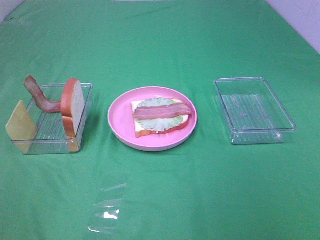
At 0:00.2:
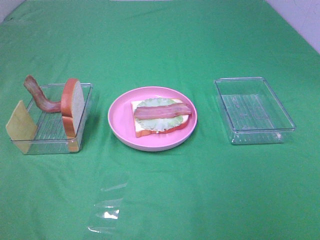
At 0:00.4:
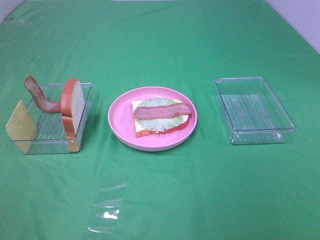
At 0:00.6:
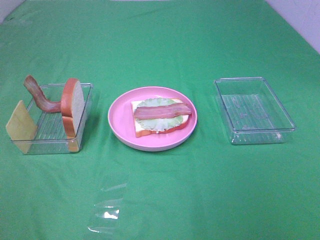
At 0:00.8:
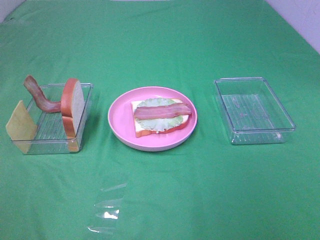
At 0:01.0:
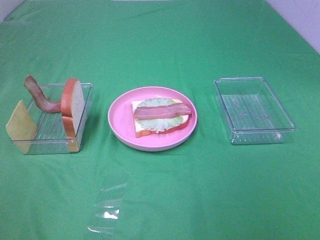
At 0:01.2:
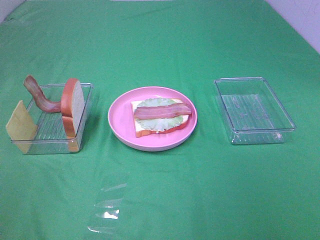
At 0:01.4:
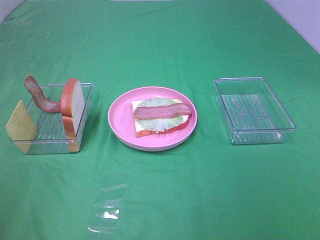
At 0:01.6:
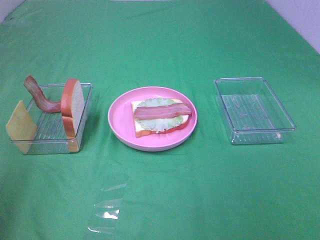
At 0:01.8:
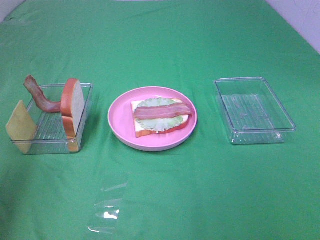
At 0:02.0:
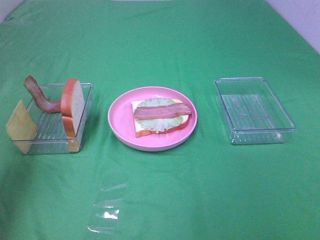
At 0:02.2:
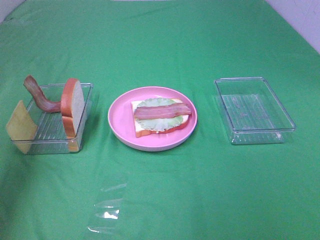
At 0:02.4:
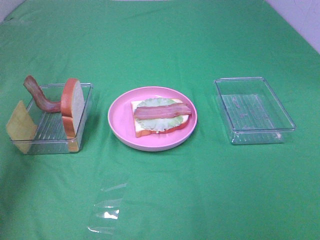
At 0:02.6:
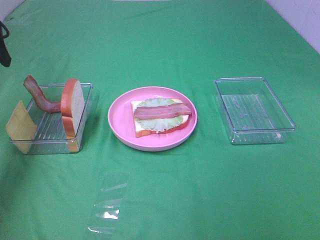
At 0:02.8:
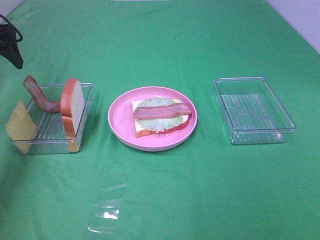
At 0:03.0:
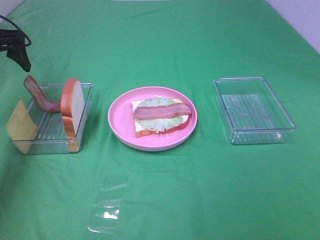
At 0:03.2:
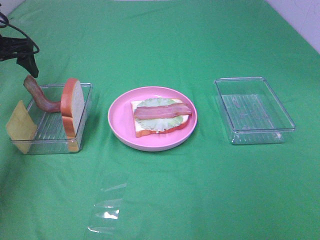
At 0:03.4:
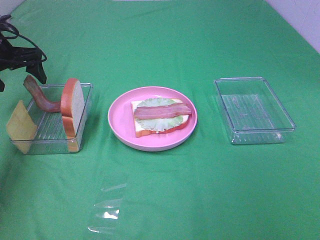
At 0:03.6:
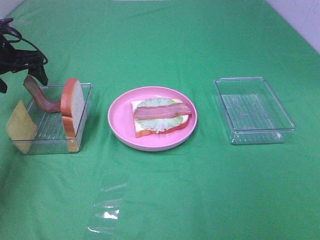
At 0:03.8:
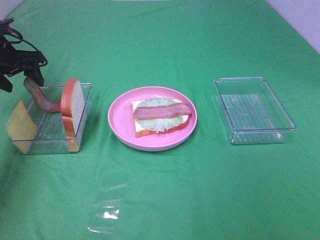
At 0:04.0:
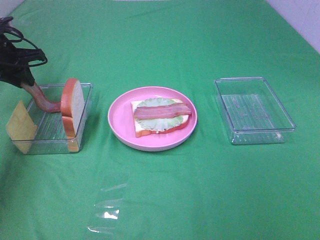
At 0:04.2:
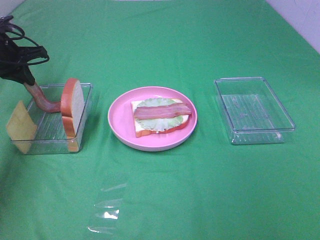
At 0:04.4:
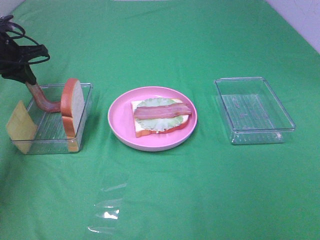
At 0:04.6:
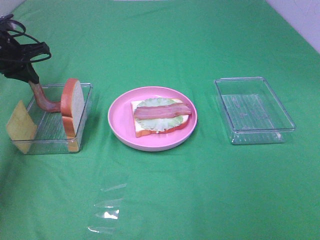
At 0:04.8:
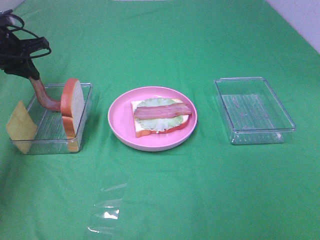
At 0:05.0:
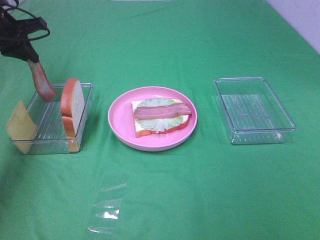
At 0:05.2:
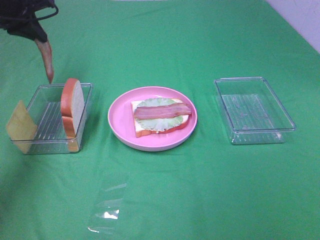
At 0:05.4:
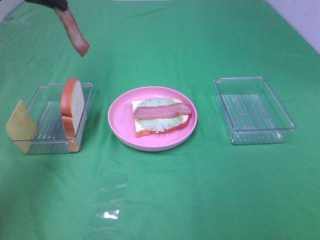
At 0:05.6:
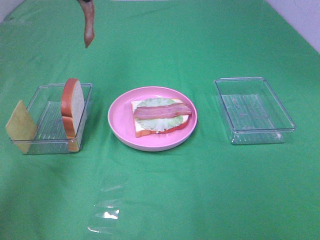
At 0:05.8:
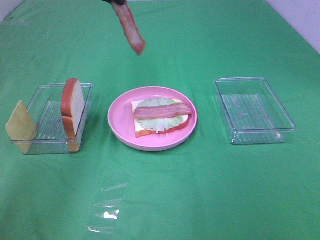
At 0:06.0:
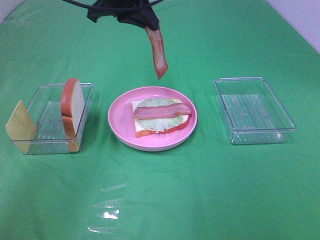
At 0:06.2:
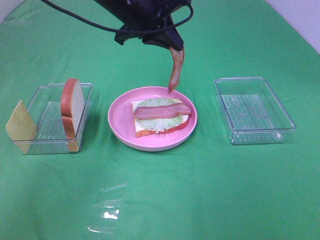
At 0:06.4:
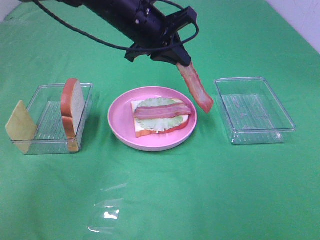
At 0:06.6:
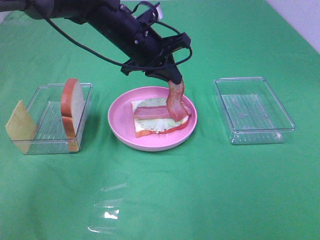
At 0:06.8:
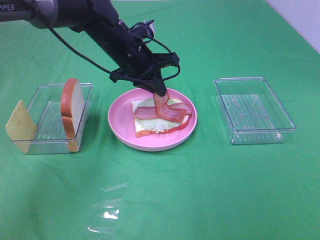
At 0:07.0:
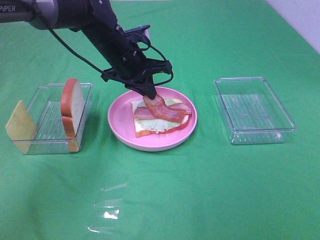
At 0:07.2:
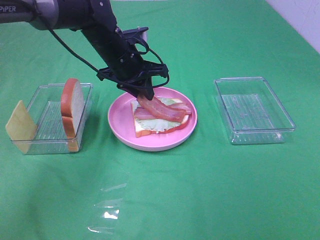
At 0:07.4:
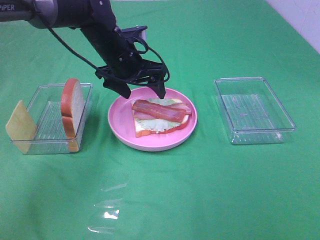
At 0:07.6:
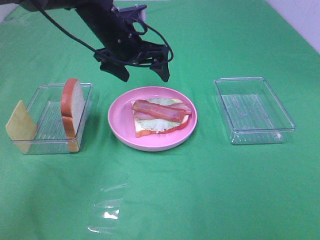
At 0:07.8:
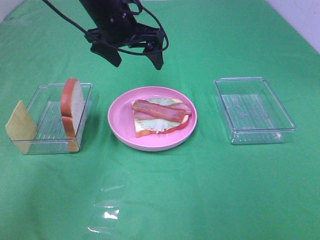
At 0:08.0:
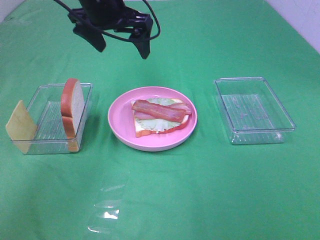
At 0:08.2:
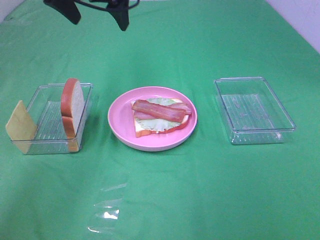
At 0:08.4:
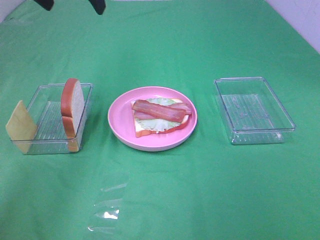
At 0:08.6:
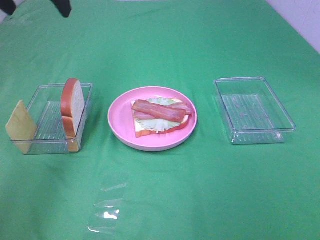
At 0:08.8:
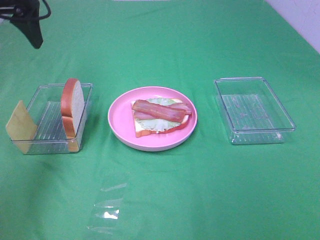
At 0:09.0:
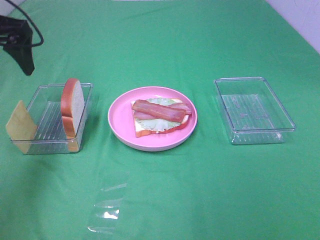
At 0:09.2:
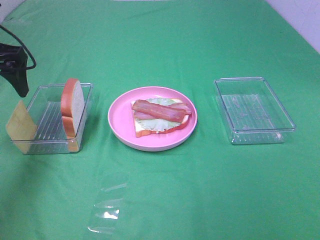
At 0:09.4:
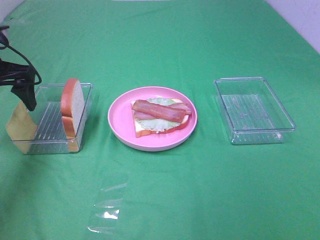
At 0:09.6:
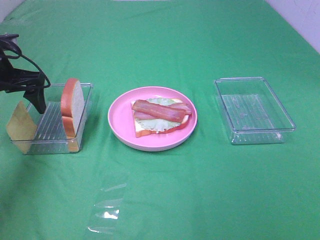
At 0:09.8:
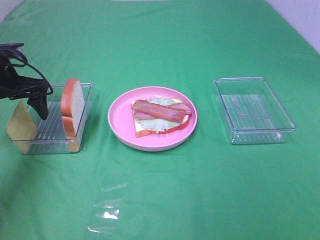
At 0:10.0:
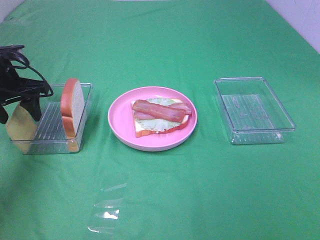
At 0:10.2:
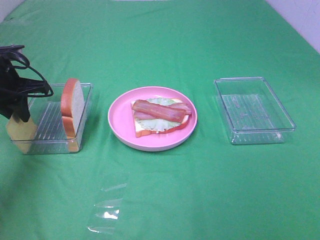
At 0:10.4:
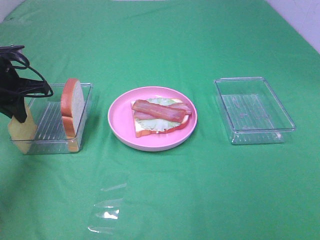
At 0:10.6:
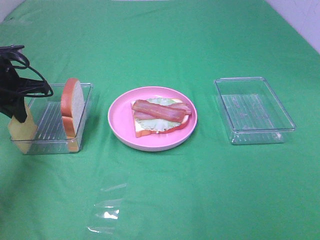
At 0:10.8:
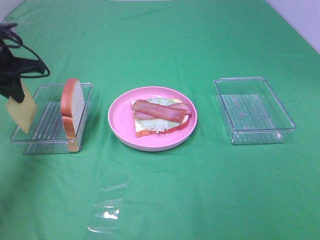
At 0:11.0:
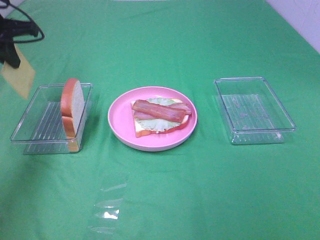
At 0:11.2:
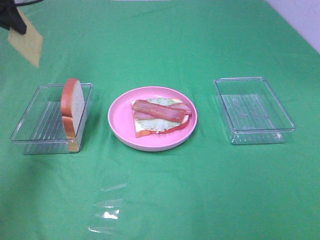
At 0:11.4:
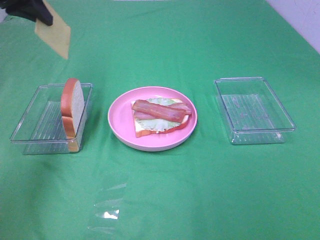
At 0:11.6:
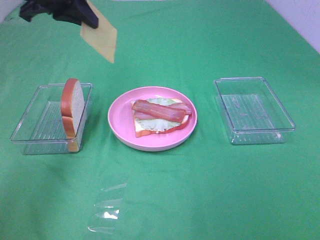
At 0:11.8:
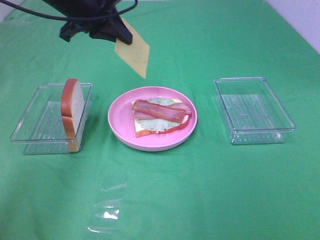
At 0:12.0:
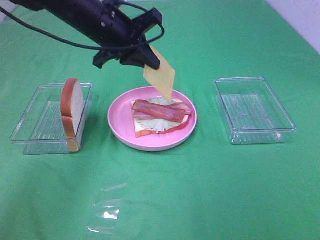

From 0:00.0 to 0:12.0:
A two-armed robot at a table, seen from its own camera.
Task of the whole recording: Make sandwiches.
Step, from 0:00.0 to 0:04.2: Left hand:grab the bacon.
Step, from 0:04.4 to 0:07.4: Left hand:place bacon on bacon.
Step, from 0:07.6 to 0:10.4: Left hand:grab the cheese slice.
From 0:00.0 to 0:01.6: The left gripper is displaced forward by some 15 cm.
From 0:01.6 to 0:03.0: The left gripper is displaced forward by roughly 30 cm.
From 0:03.0 to 0:04.4: The left gripper heads downward, covering about 5 cm, and closes its fingers.
From 0:04.4 to 0:06.0: The left gripper heads to the right and upward, covering approximately 25 cm.
From 0:06.0 to 0:07.6: The left gripper shifts approximately 10 cm downward, and opens up.
From 0:07.6 to 0:09.0: The left gripper is displaced to the left by approximately 20 cm.
From 0:09.0 to 0:10.4: The left gripper heads downward, covering about 10 cm, and closes.
From 0:10.4 to 0:12.0: The left gripper heads to the right, covering approximately 20 cm.

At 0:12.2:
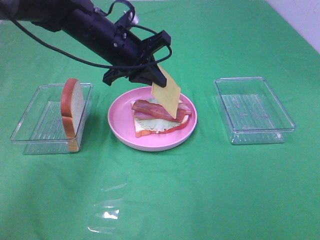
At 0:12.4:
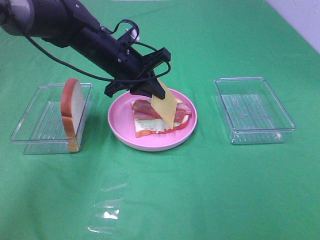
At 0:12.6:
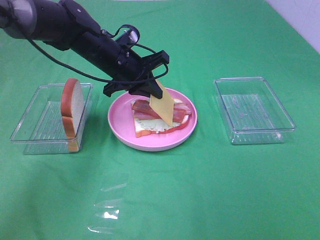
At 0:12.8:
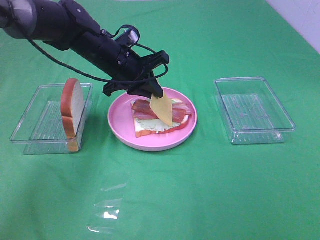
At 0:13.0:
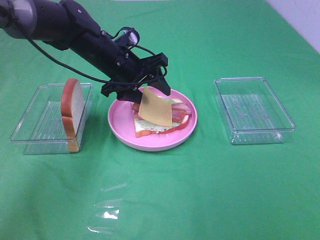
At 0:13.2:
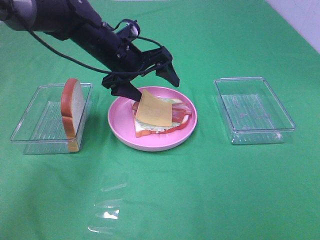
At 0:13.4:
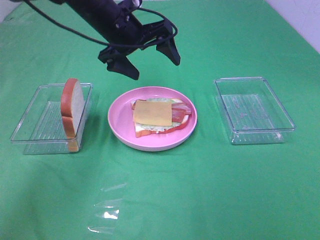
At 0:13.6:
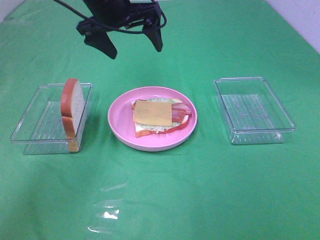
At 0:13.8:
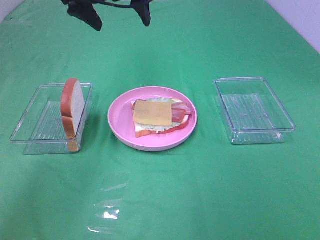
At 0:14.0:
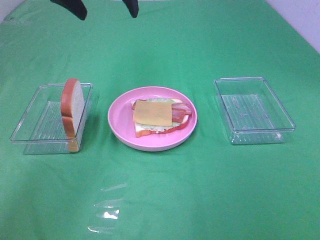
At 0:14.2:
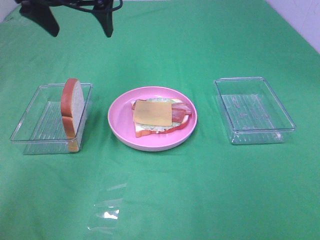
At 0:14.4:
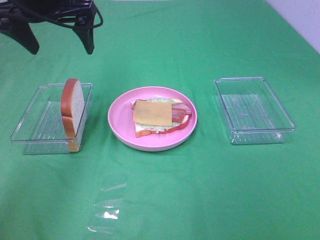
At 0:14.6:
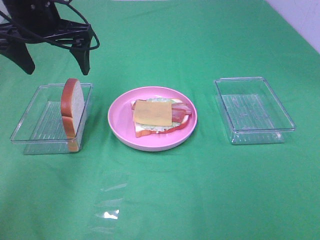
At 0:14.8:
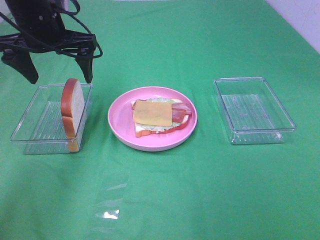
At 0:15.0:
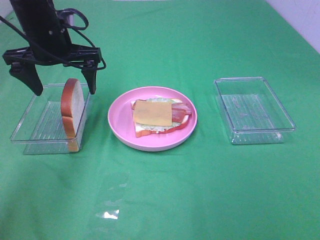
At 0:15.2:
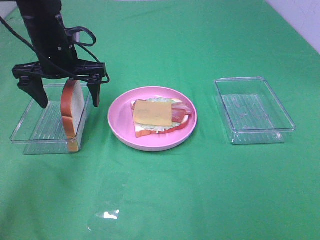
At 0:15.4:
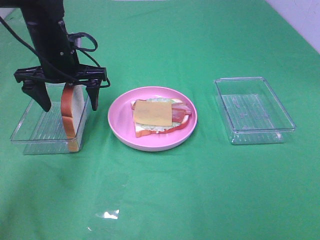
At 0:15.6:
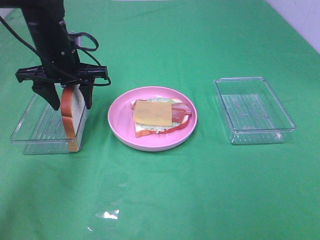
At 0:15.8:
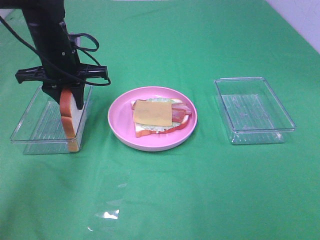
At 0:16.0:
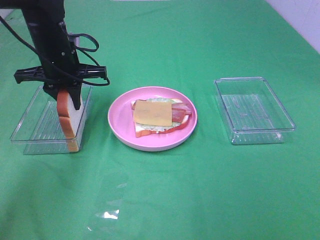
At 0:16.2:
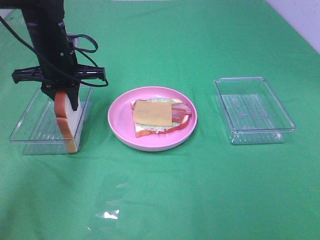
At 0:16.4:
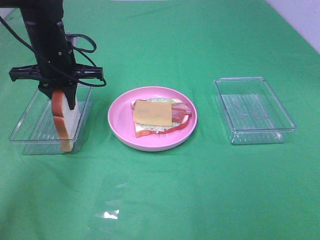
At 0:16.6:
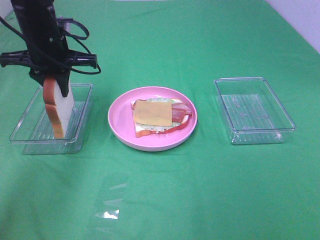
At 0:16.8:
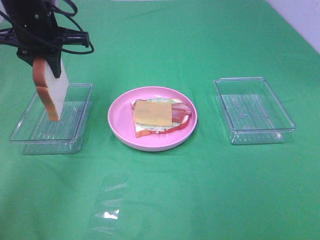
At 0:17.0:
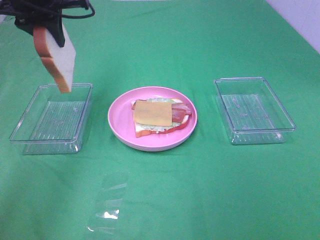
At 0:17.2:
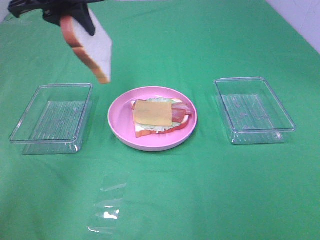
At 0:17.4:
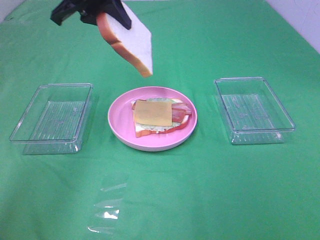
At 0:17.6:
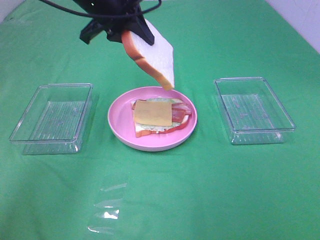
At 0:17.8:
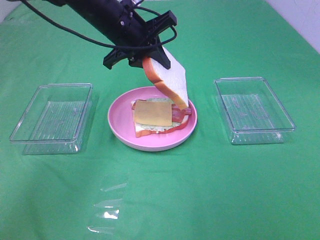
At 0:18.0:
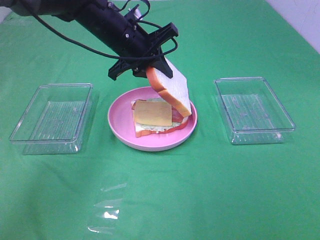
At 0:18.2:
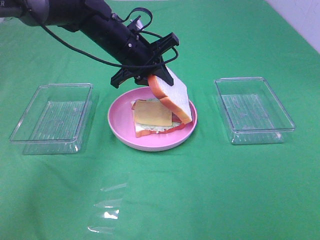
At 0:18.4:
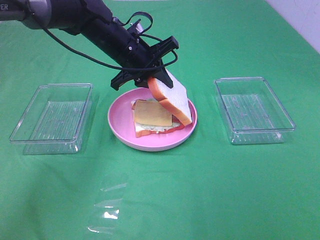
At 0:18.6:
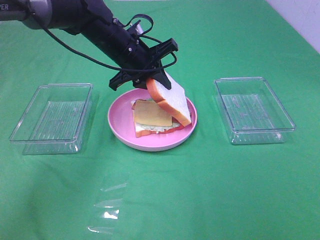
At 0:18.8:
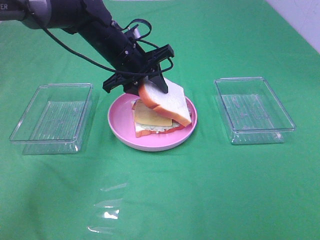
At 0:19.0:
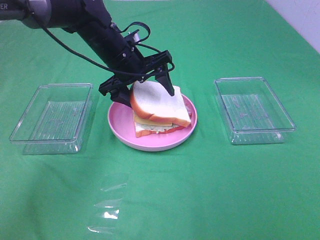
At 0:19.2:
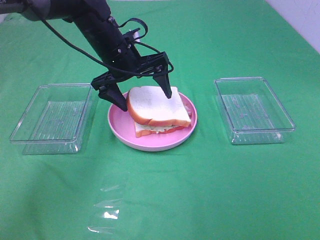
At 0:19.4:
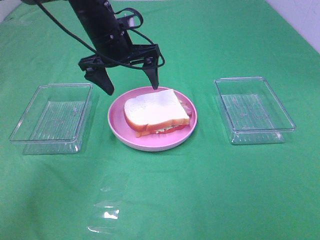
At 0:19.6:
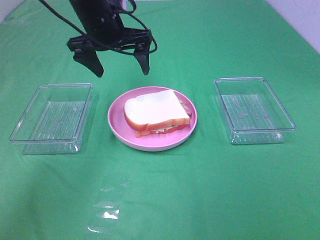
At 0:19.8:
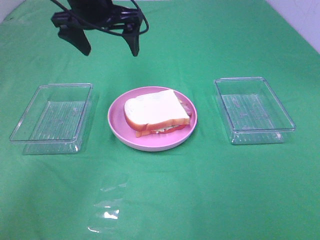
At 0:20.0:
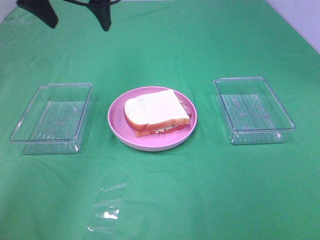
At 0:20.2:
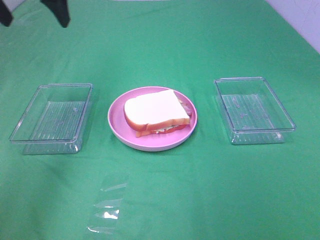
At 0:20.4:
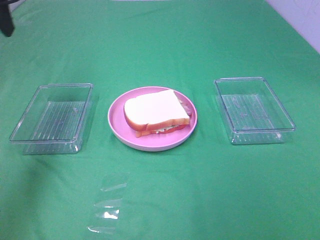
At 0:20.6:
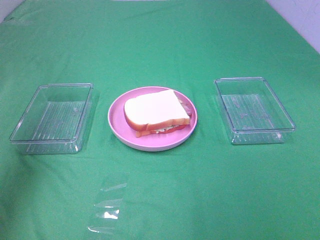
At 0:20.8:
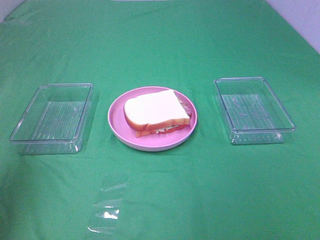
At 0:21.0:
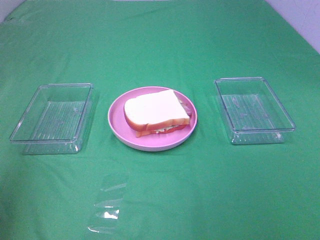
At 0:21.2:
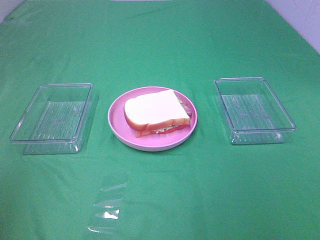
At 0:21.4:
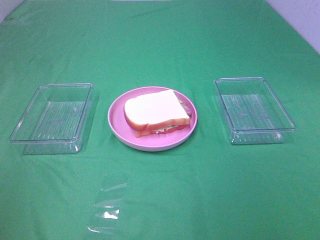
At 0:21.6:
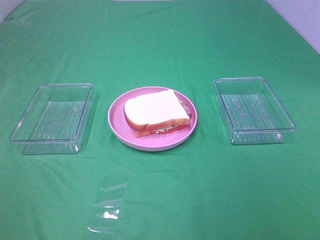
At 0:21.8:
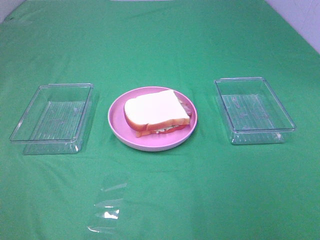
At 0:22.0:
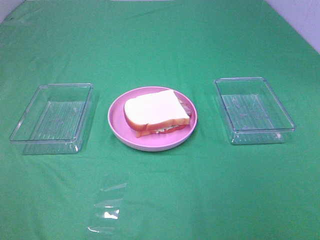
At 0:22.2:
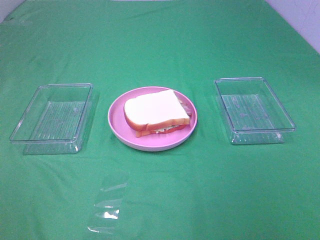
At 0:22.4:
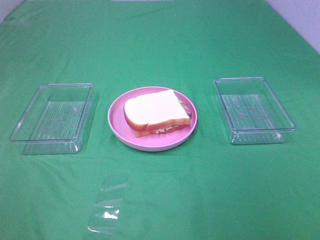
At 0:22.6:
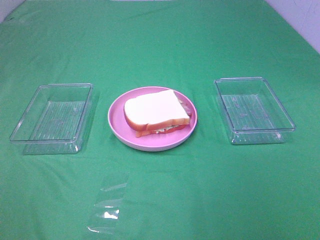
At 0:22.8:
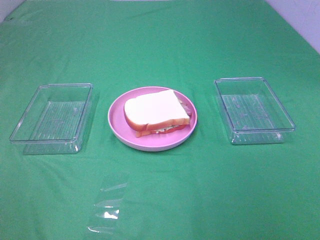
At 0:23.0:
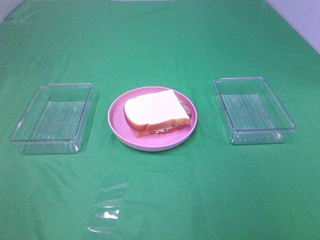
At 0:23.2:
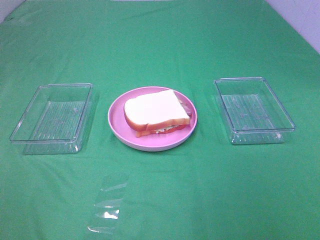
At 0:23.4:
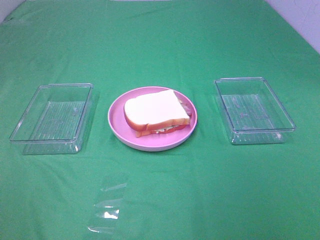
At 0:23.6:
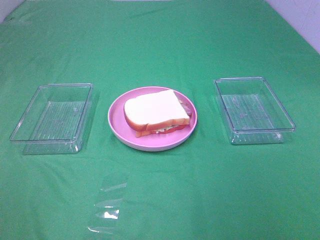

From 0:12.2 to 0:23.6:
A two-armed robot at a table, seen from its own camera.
Task of the whole recording: Make sandwiches.
Step, from 0:13.4 to 0:16.0: Left hand:grab the bread slice.
Step, from 0:16.2 to 0:19.2: Left hand:place the bread slice on the cheese slice.
From 0:12.2 to 0:13.6: The left gripper moves upward, roughly 10 cm, and opens its fingers.
From 0:13.6 to 0:15.0: The left gripper goes about 10 cm to the left and downward.
From 0:15.0 to 0:16.4: The left gripper closes its fingers.
From 0:16.4 to 0:17.8: The left gripper travels to the right by approximately 10 cm, and moves roughly 15 cm upward and comes back.
From 0:17.8 to 0:19.4: The left gripper opens.
From 0:19.4 to 0:20.8: The left gripper is displaced backward, to the left and upward by approximately 40 cm.
From 0:20.8 to 0:22.2: The left gripper heads backward and downward, covering roughly 20 cm.
From 0:22.2 to 0:23.6: Both grippers stay about where they are.
